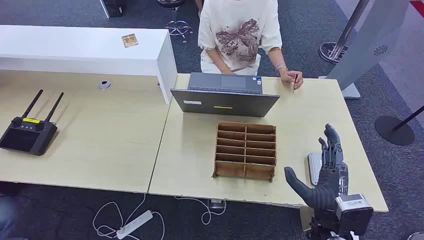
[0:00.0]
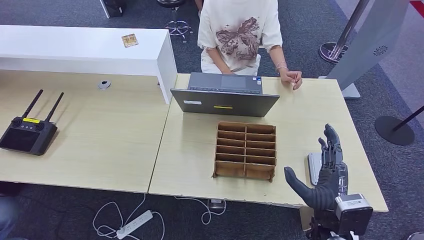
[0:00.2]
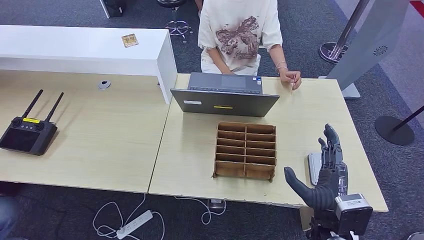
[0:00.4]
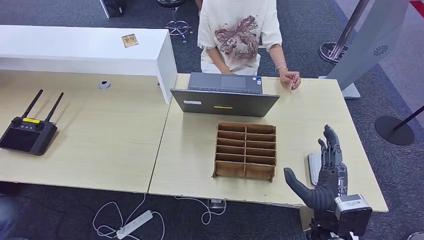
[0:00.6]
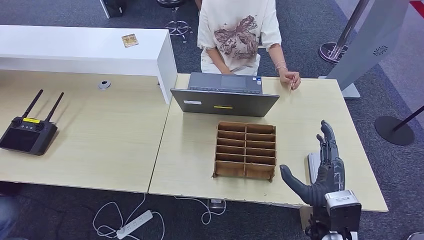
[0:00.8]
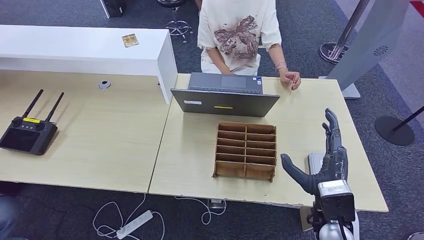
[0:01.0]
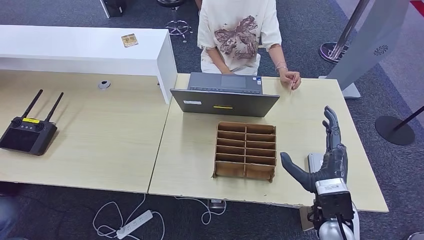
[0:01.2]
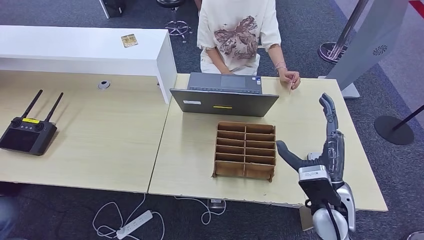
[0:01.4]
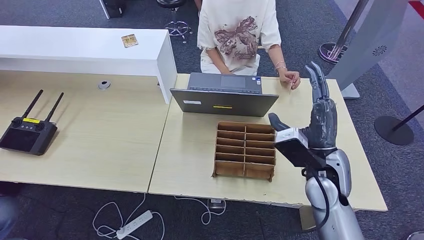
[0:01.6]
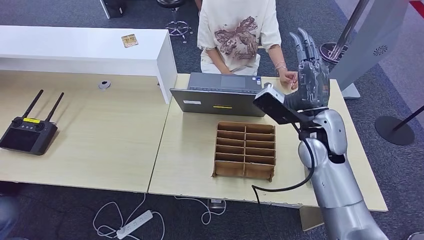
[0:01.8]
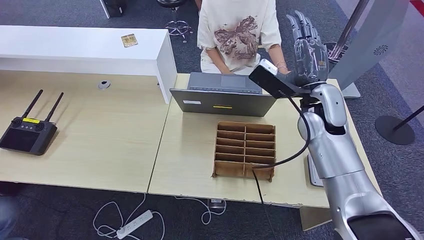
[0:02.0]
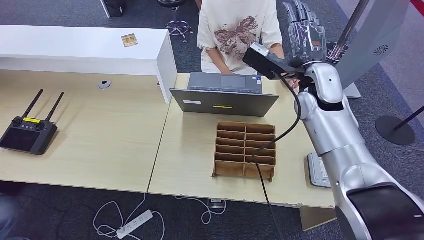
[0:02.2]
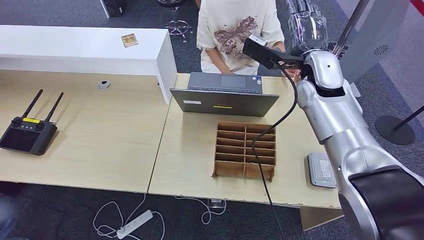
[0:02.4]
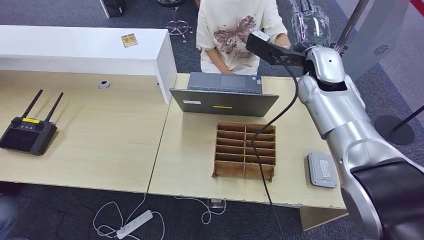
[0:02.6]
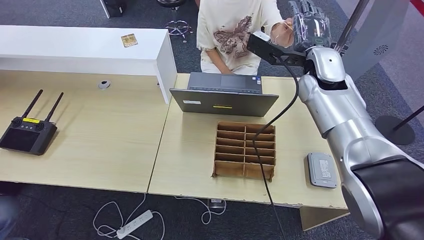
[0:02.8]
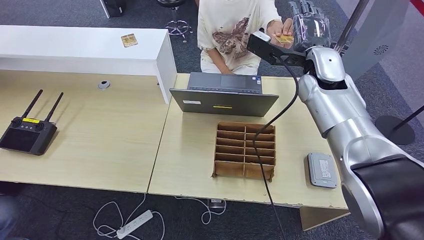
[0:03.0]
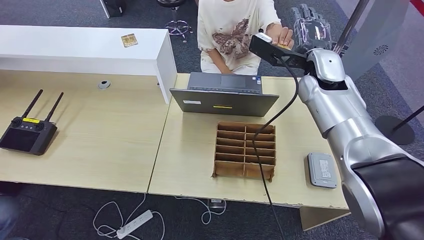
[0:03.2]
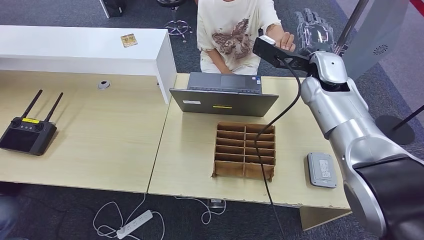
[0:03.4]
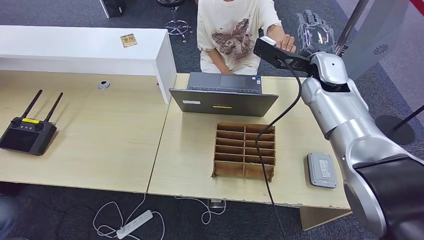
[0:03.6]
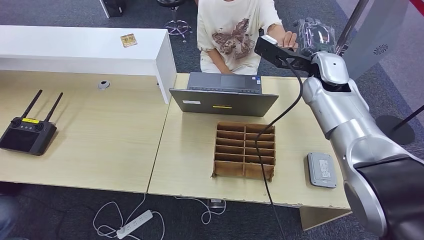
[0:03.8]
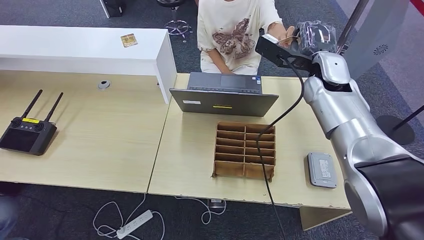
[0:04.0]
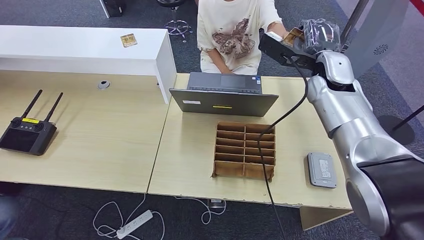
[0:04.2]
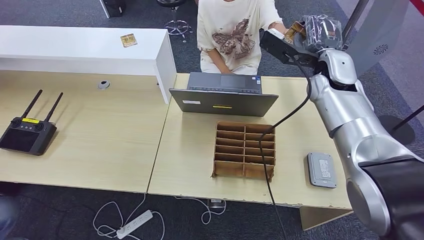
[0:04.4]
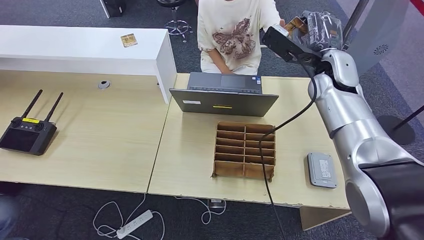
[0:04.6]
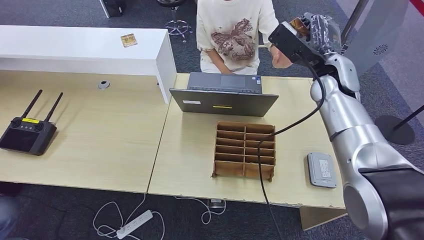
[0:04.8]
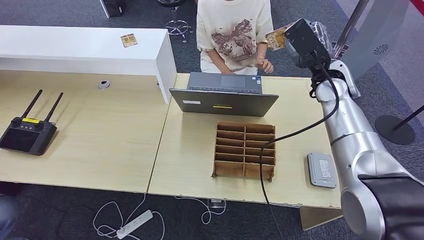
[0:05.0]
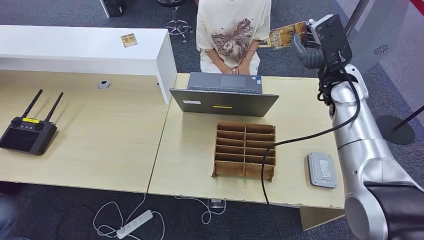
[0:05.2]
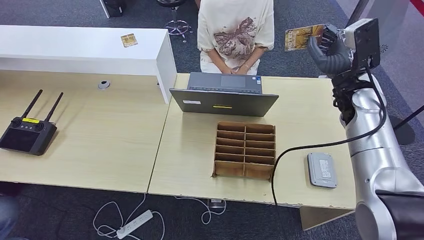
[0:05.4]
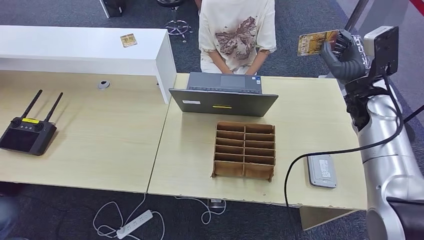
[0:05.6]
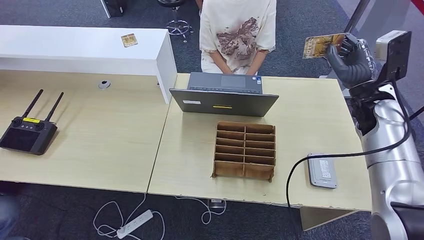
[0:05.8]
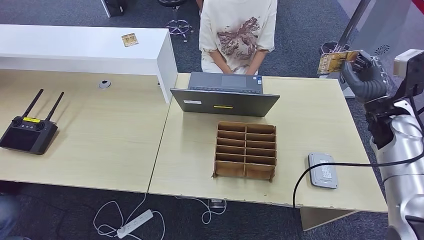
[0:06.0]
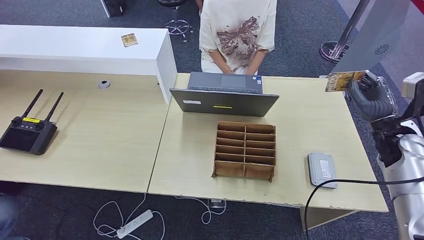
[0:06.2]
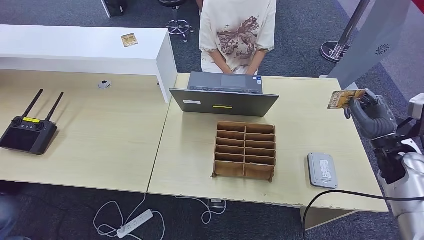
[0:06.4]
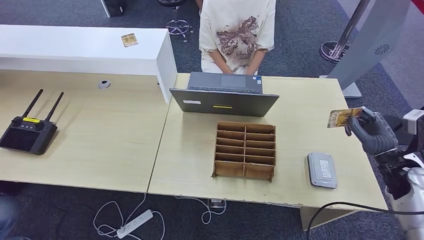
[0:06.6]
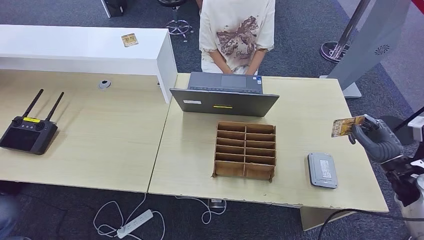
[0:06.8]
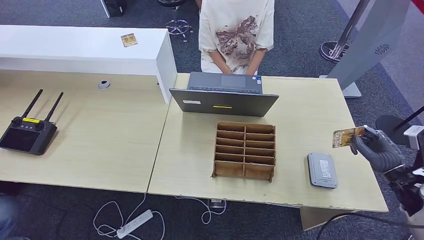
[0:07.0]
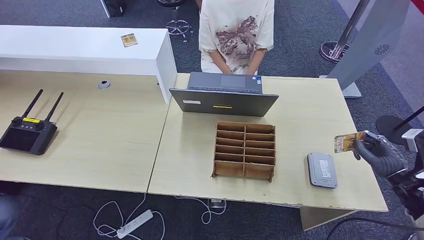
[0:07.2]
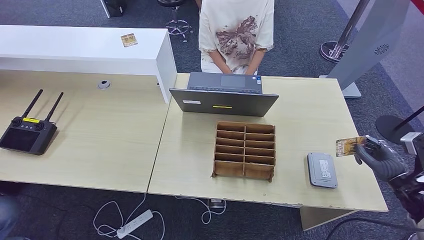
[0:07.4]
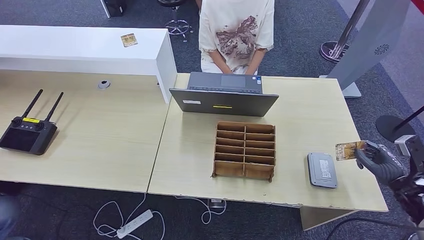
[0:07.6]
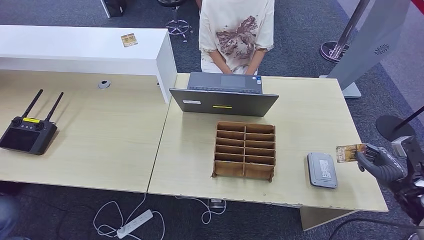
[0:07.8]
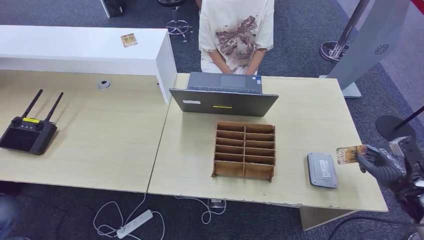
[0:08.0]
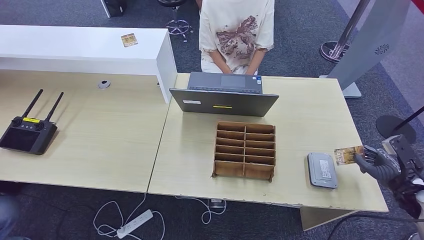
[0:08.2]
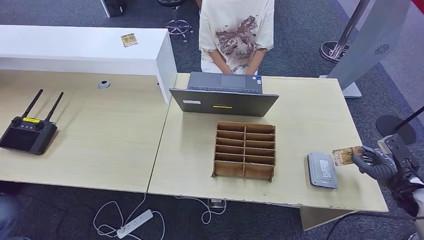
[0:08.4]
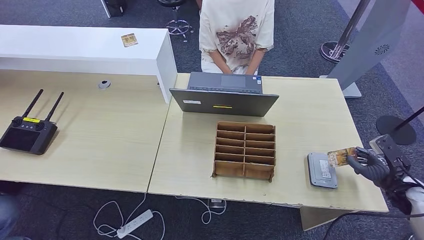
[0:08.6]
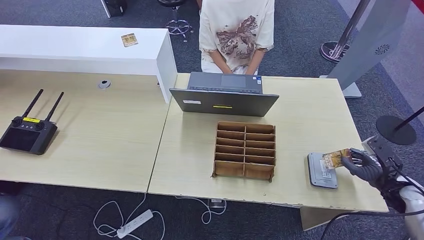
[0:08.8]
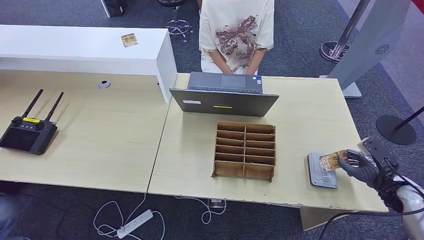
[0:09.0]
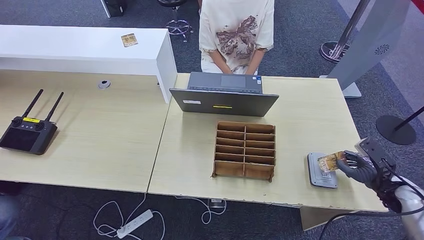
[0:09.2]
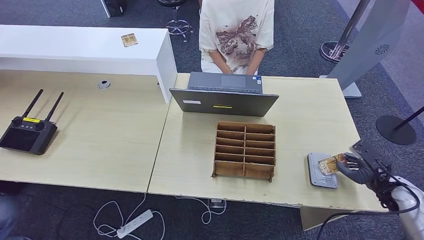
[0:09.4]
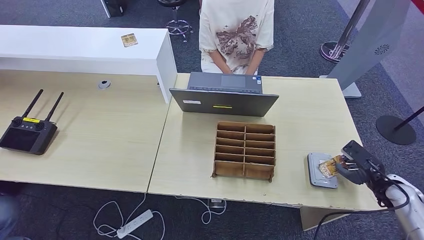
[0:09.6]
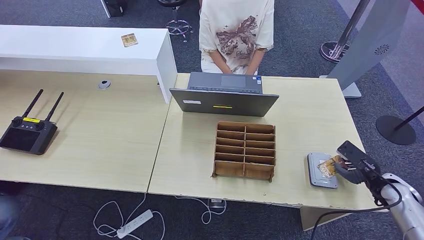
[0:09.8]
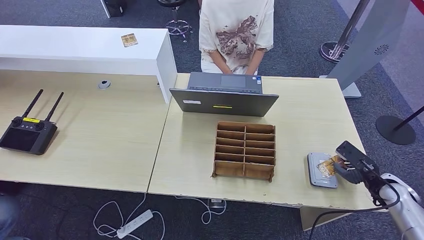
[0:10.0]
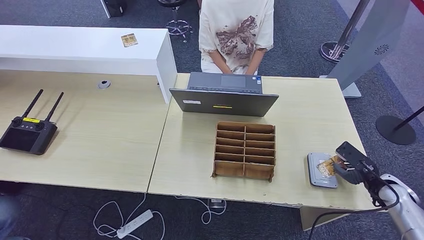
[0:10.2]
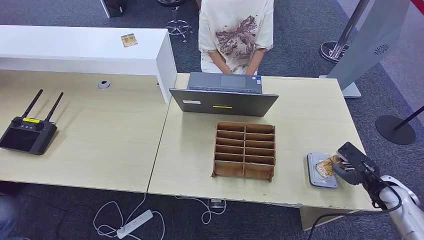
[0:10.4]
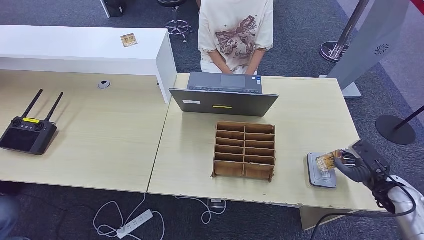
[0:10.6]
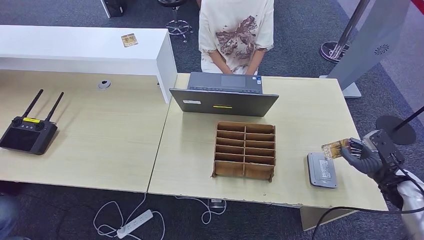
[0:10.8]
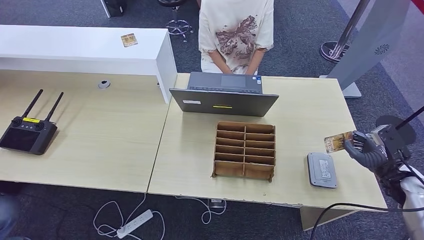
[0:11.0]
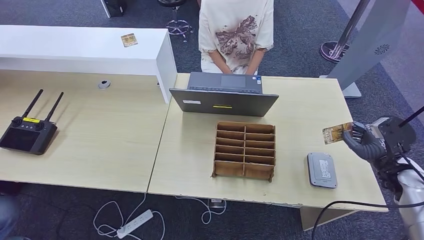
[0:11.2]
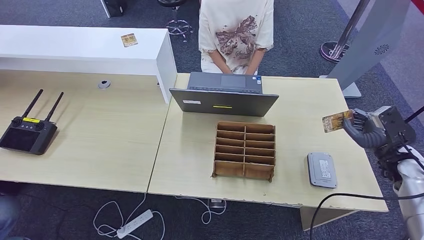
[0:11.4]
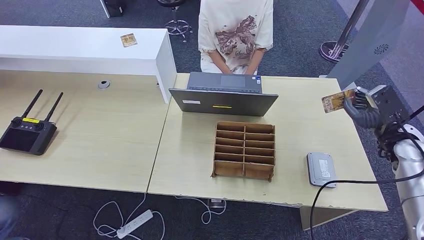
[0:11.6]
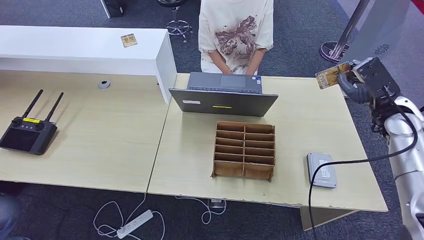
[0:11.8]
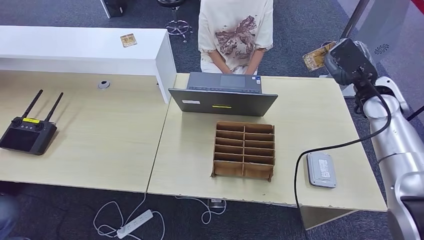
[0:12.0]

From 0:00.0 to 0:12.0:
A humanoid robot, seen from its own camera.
Step, from 0:00.0 to 0:04.8: Take the ID card from the person's hand.
Step, from 0:05.2 to 0:09.4: Place the ID card on the card reader.
From 0:01.6 to 0:03.0: The right hand is displaced forward and upward by roughly 20 cm.
From 0:03.0 to 0:04.4: The hands stay close to where they were, moving slightly.
From 0:06.0 to 0:07.6: The right hand is displaced downward, backward and to the right by about 20 cm.
From 0:07.6 to 0:09.0: The hands make only small movements.
From 0:10.4 to 0:12.0: The right hand shifts about 25 cm upward, forward and to the left.

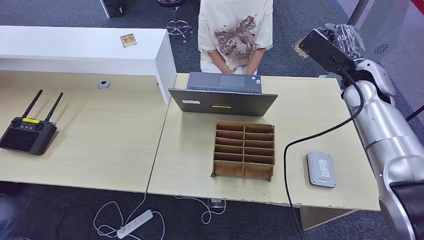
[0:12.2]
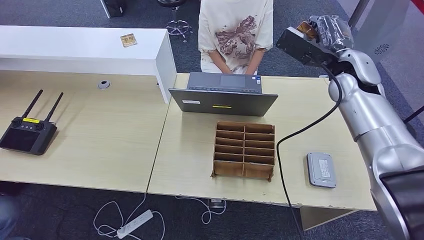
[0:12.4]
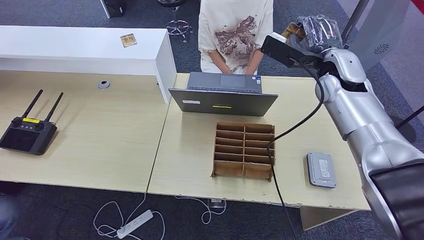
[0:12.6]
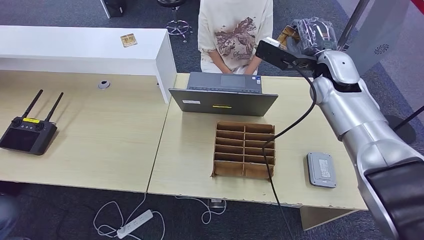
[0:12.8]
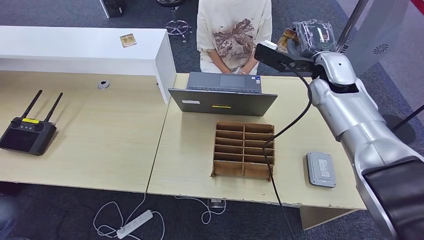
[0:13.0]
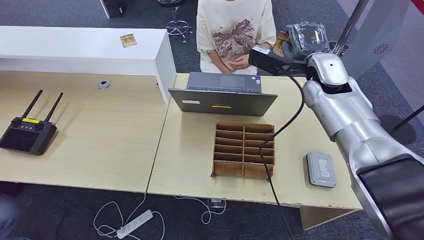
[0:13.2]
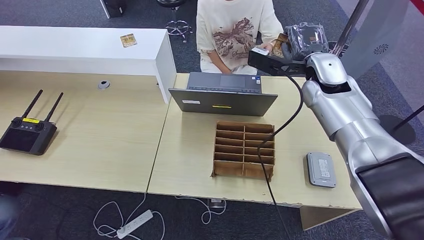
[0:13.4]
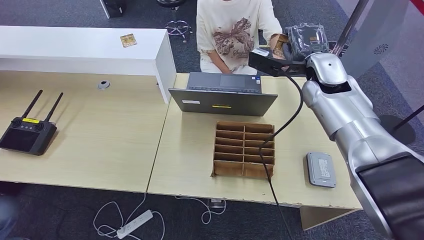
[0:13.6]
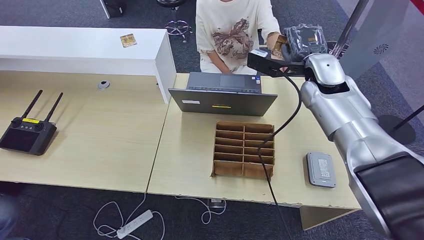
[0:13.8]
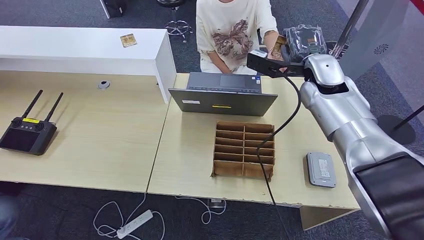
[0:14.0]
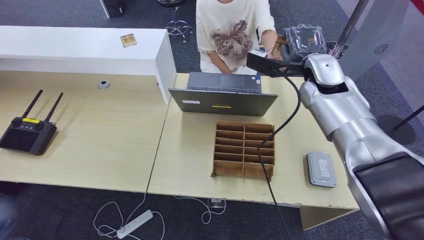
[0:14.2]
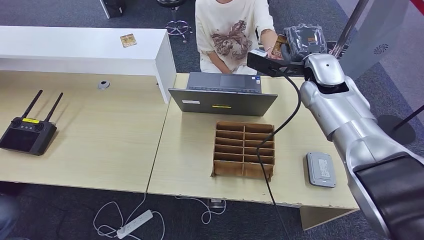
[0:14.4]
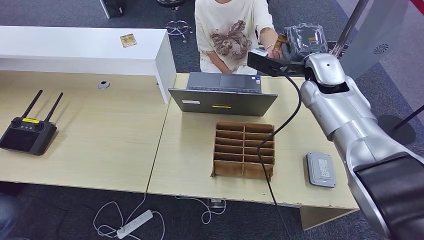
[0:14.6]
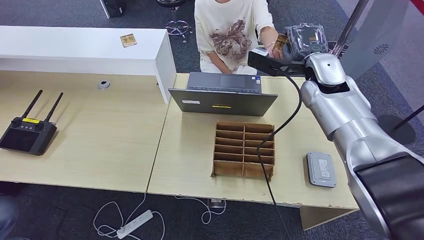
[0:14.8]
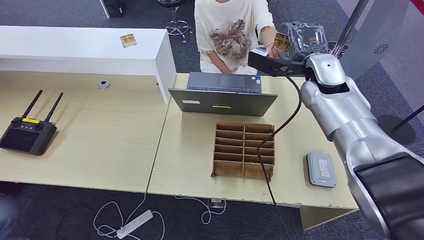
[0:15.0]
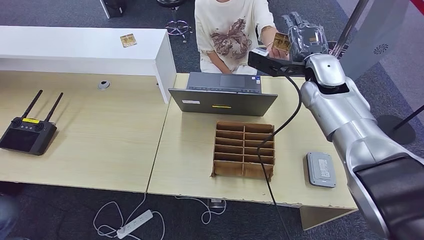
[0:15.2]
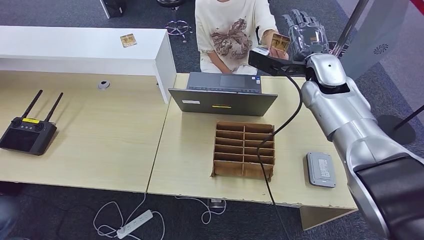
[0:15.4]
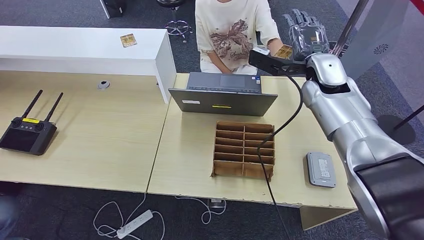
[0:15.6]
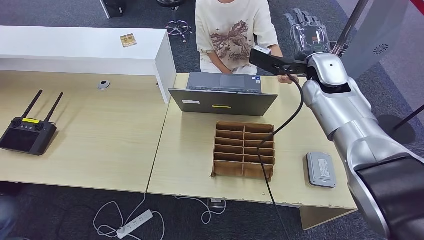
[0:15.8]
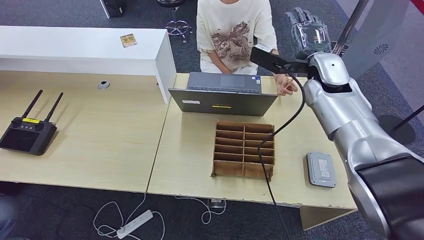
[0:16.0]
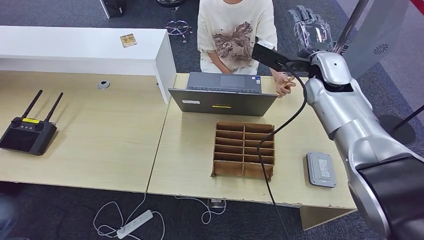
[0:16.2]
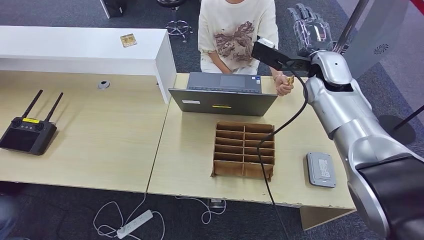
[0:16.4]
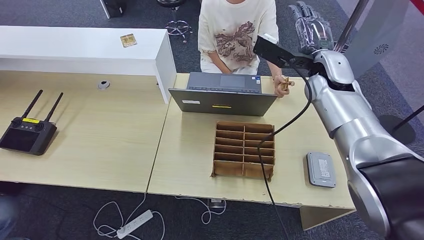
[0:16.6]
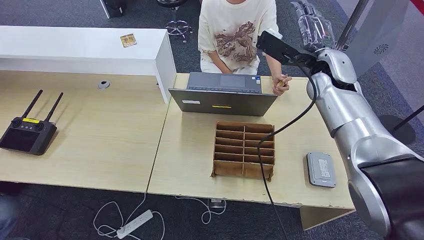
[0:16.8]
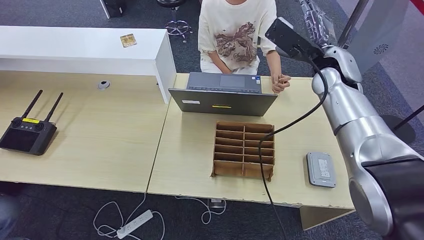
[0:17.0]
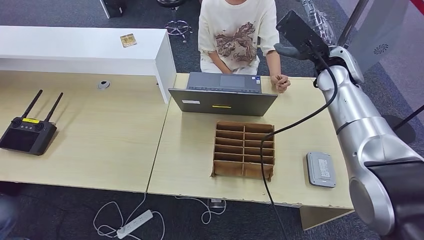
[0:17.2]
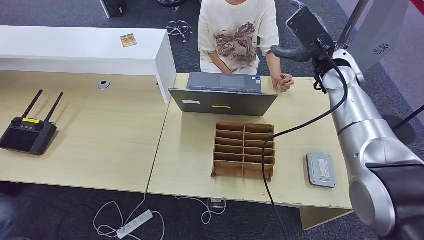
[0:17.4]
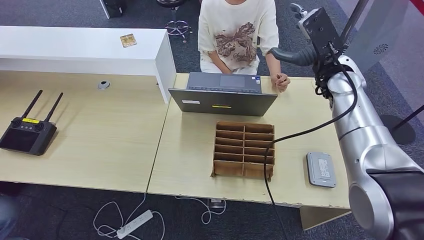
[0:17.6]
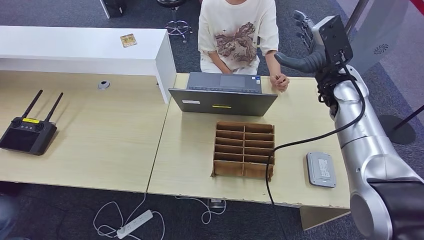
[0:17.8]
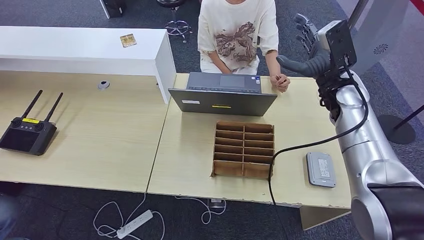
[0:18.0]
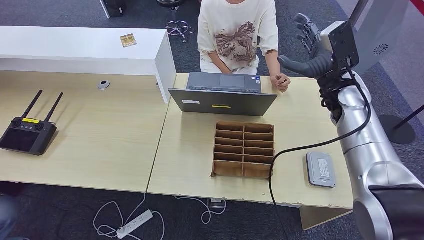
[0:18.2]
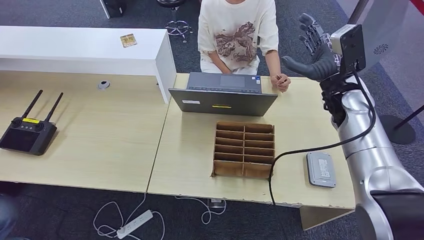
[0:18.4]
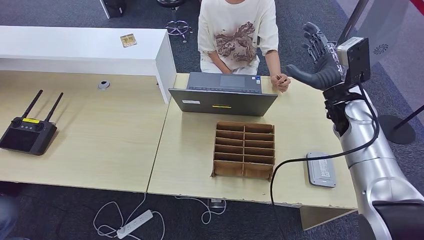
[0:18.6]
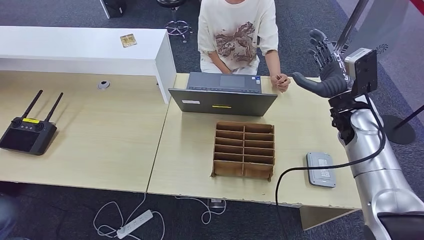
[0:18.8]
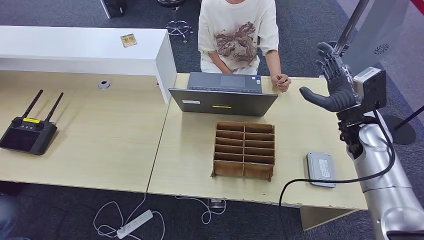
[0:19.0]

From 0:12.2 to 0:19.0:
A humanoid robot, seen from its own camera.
Step, from 0:12.2 to 0:15.2: Hand the ID card to the person.
From 0:12.2 to 0:13.6: The right hand moves to the left, some 10 cm.
From 0:13.6 to 0:15.0: Both hands stay about where they are.
From 0:15.0 to 0:16.2: There are only small adjustments of the hands.
From 0:17.6 to 0:19.0: The right hand travels downward, to the right and backward by about 15 cm.
